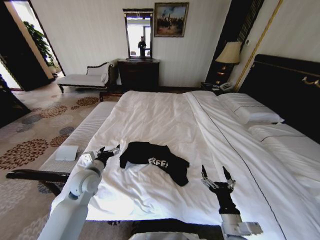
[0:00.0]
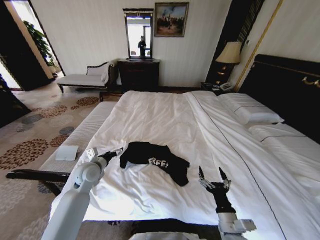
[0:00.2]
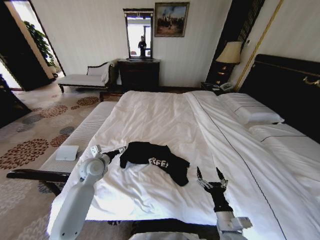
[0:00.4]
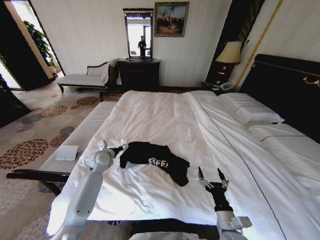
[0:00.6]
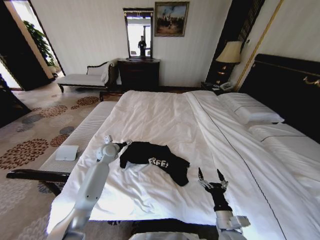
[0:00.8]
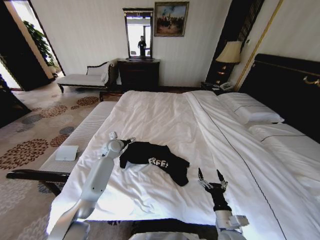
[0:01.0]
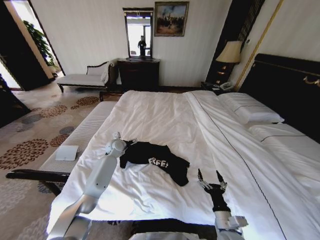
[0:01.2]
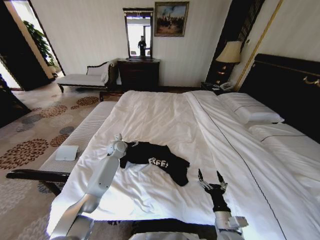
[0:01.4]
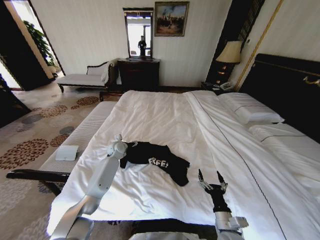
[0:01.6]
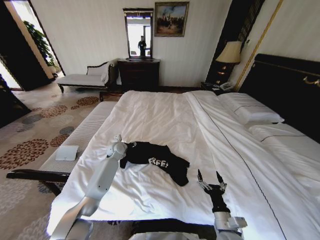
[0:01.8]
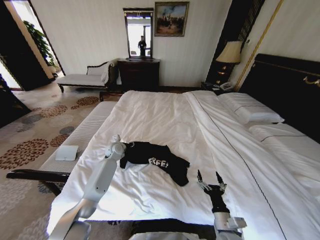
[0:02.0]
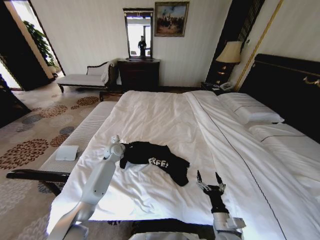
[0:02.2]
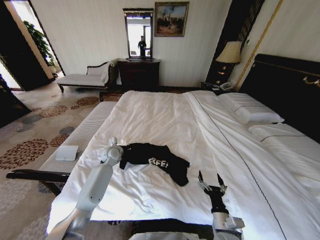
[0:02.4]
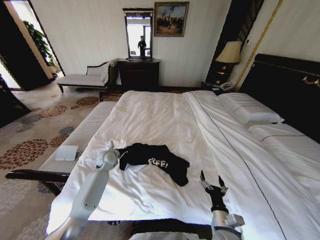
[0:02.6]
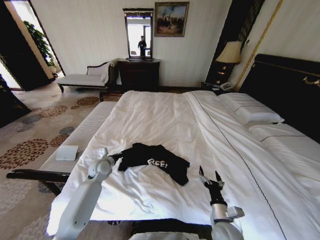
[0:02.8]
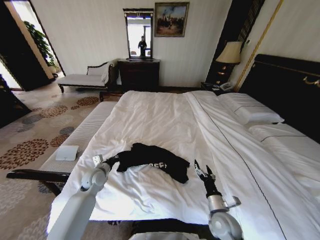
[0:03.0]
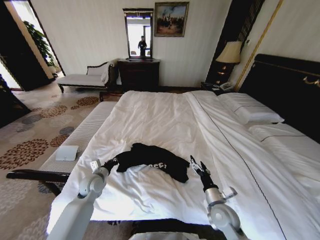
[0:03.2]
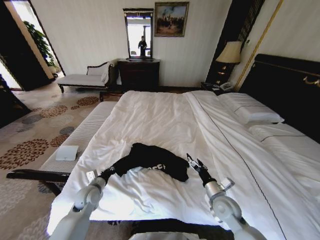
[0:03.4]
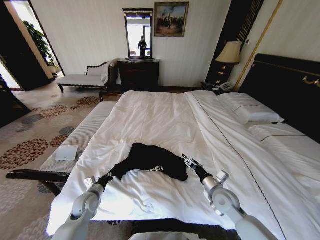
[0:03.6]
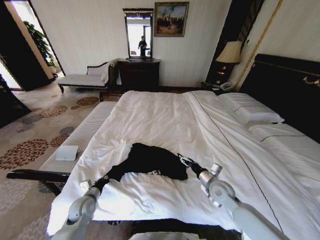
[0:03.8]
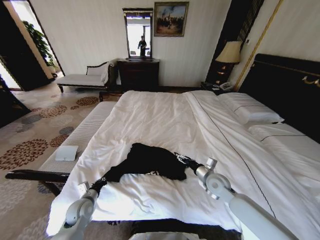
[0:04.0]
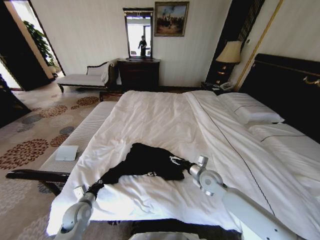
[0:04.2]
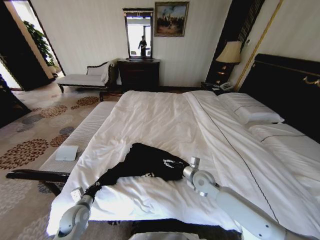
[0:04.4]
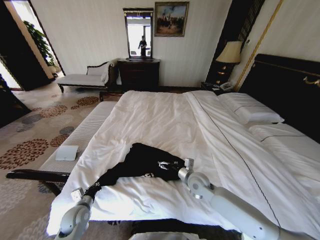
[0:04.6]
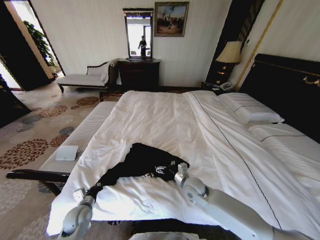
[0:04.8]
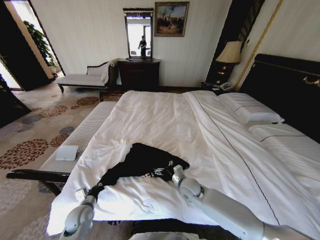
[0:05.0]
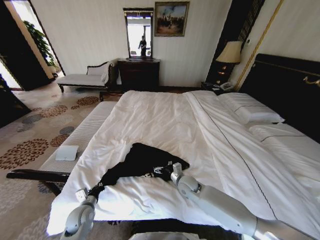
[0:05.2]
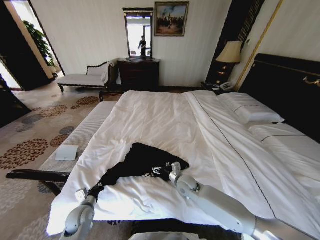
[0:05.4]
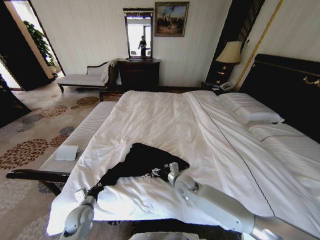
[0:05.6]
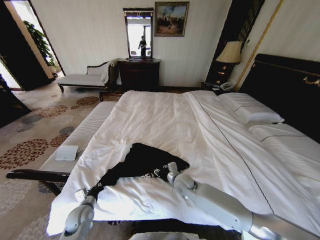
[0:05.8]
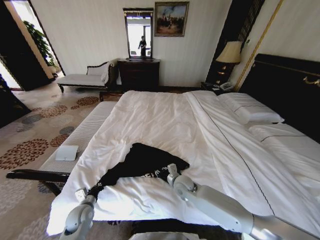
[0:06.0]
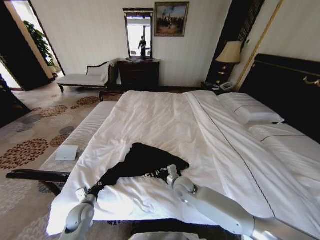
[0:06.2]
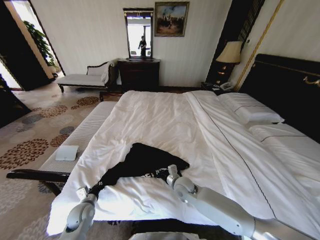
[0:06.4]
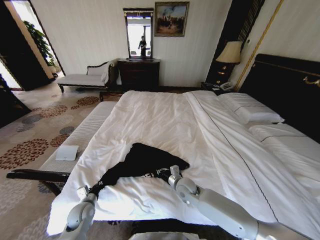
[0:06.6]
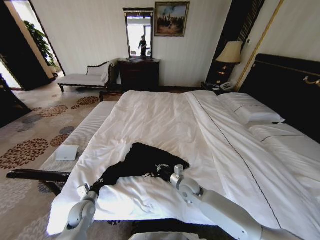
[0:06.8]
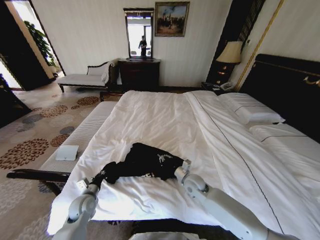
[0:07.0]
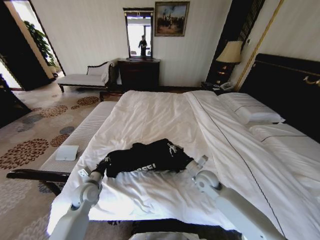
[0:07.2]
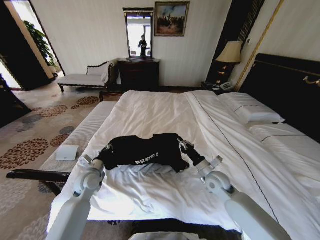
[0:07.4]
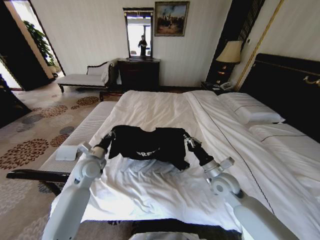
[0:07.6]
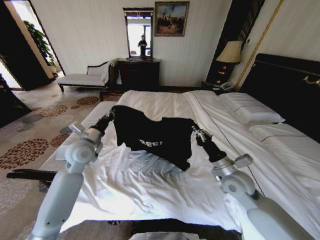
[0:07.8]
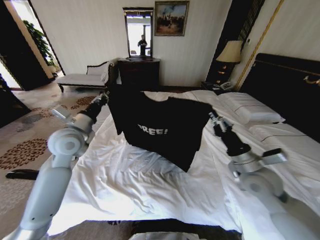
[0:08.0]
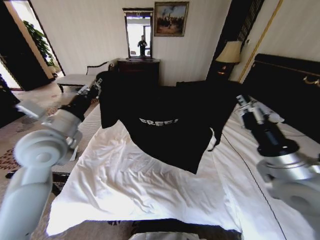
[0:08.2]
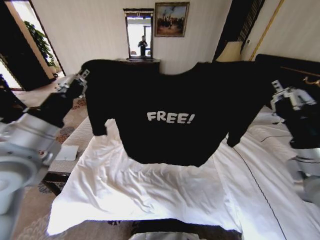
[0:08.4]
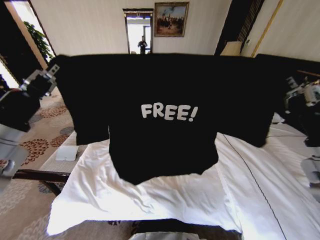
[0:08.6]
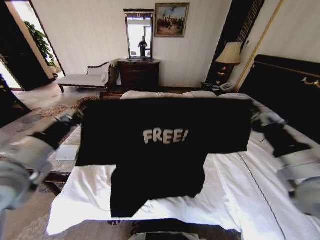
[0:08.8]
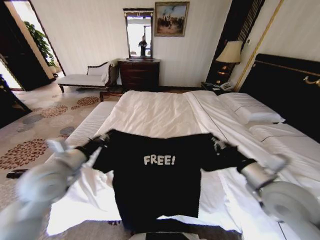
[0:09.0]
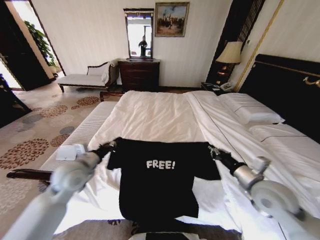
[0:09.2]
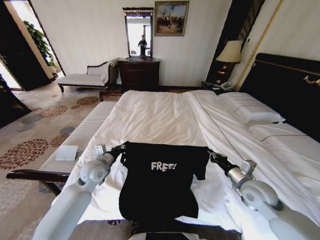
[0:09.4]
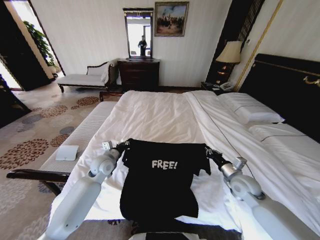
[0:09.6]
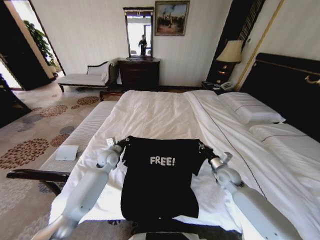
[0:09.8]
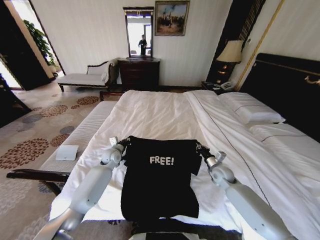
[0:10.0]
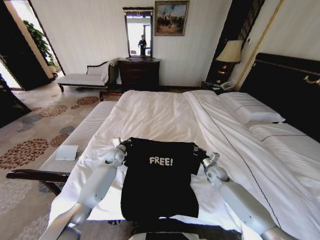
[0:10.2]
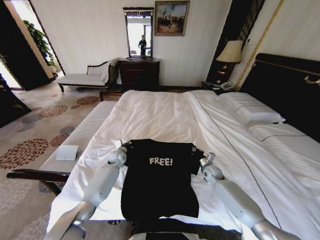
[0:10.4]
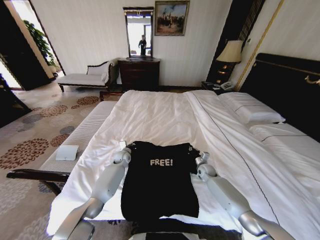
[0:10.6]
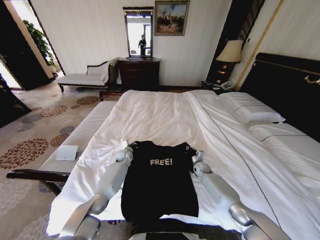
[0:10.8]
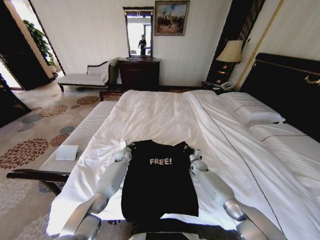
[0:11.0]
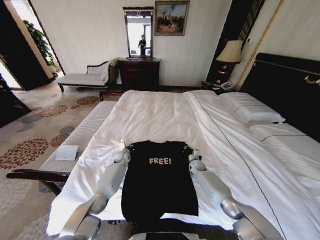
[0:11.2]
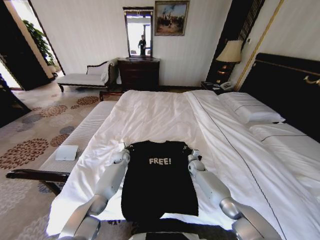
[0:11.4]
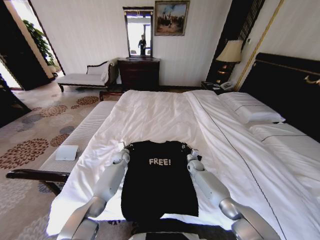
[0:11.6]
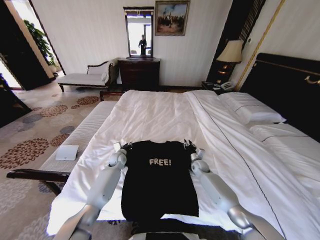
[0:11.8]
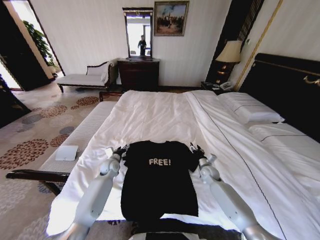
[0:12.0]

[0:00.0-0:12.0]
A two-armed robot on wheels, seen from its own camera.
Task of the whole recording: Fold the clothes on the bed.
0:00.0 to 0:01.6: The left gripper travels forward by about 20 cm. The right gripper shifts approximately 5 cm downward.
0:01.6 to 0:03.0: The left gripper moves backward and to the left, roughly 20 cm, and closes up. The right gripper is displaced forward by approximately 5 cm.
0:03.0 to 0:04.4: The right gripper heads forward, covering about 15 cm; the left gripper moves backward and downward, roughly 15 cm.
0:04.4 to 0:06.0: The right gripper shifts about 10 cm to the left, and closes up.
0:06.0 to 0:07.6: The right gripper heads to the right and upward, covering roughly 15 cm; the left gripper moves upward and forward, about 20 cm.
0:07.6 to 0:09.0: The grippers both shift upward and backward by some 20 cm.
0:09.0 to 0:10.4: The grippers both shift downward and forward by roughly 35 cm.
0:10.4 to 0:12.0: The right gripper goes forward and returns, some 5 cm each way, and opens its fingers. The left gripper travels backward by some 5 cm, and opens.

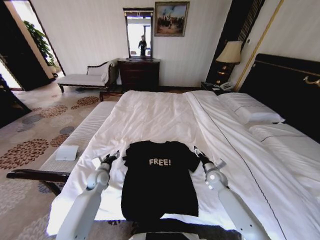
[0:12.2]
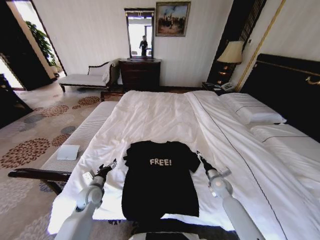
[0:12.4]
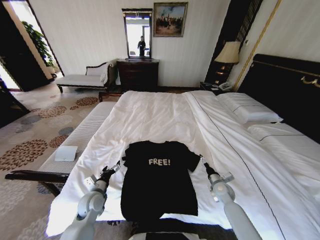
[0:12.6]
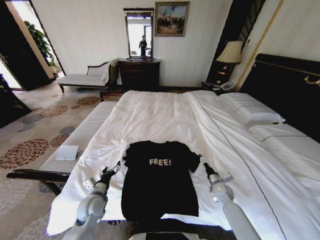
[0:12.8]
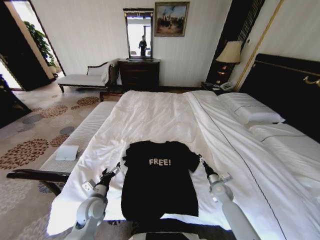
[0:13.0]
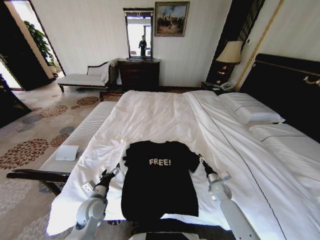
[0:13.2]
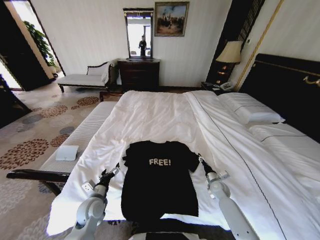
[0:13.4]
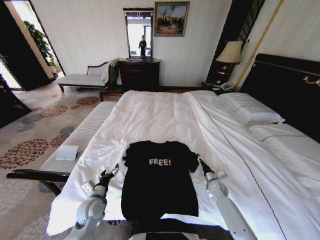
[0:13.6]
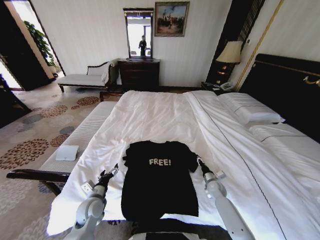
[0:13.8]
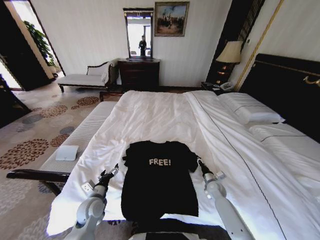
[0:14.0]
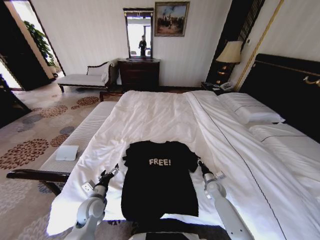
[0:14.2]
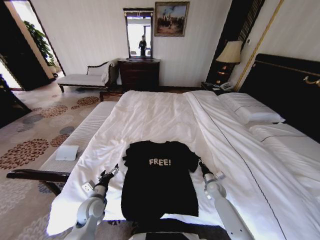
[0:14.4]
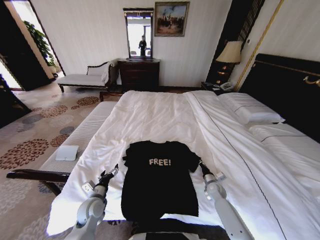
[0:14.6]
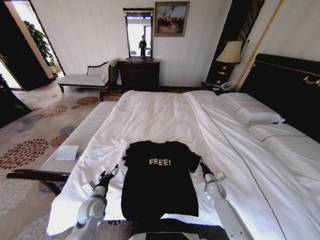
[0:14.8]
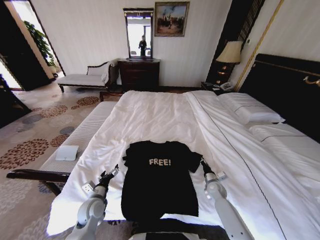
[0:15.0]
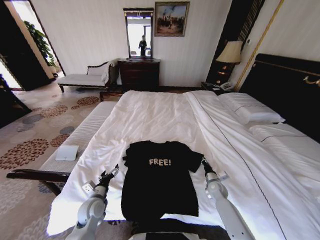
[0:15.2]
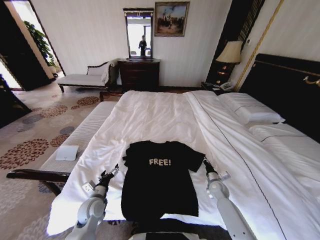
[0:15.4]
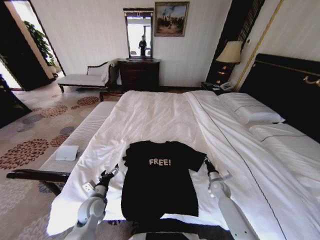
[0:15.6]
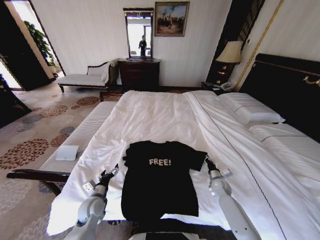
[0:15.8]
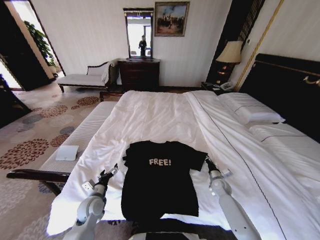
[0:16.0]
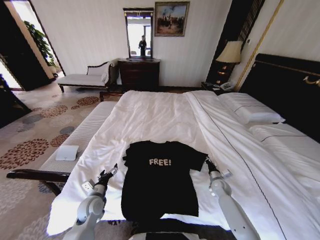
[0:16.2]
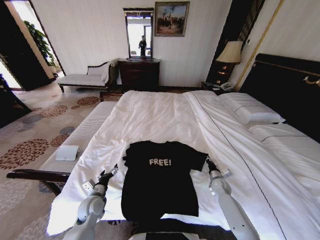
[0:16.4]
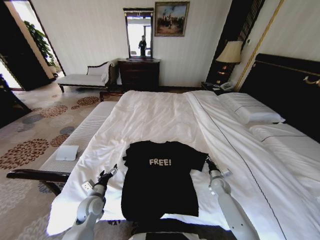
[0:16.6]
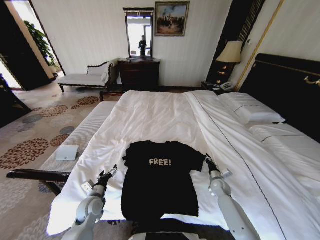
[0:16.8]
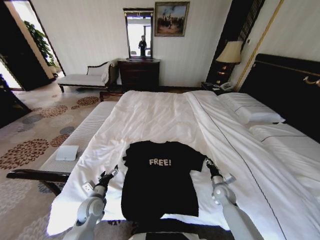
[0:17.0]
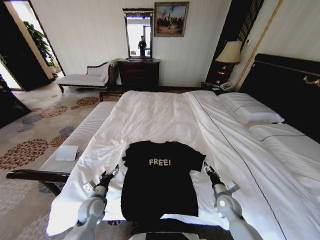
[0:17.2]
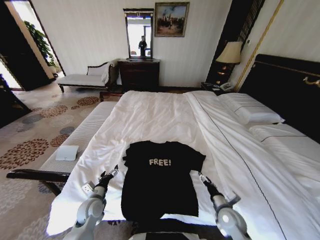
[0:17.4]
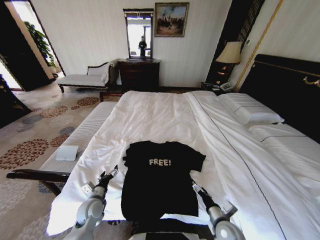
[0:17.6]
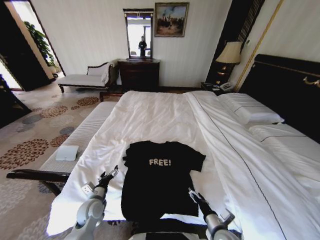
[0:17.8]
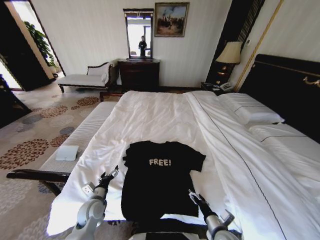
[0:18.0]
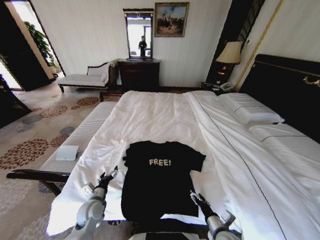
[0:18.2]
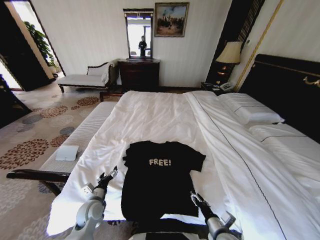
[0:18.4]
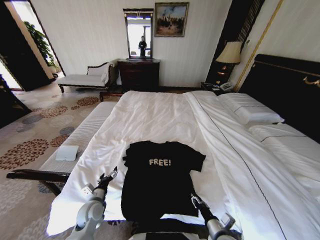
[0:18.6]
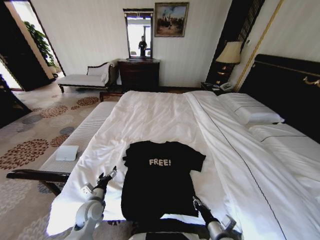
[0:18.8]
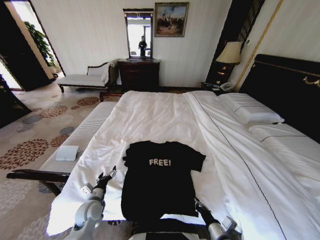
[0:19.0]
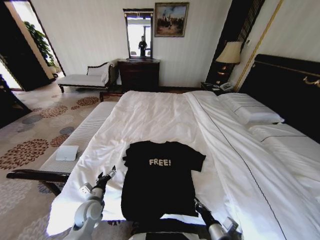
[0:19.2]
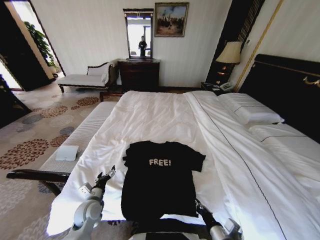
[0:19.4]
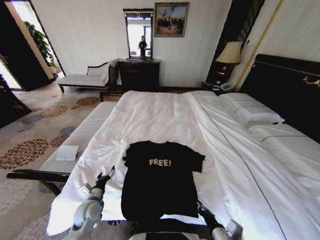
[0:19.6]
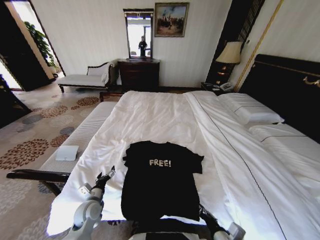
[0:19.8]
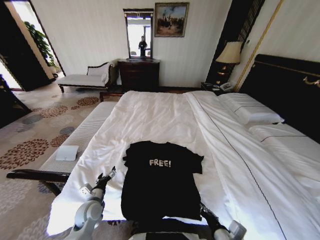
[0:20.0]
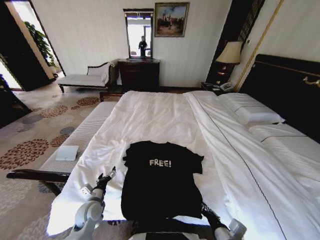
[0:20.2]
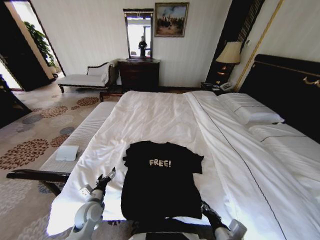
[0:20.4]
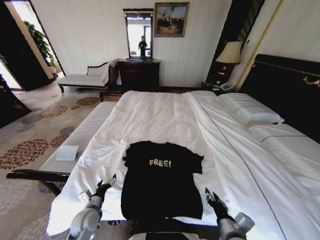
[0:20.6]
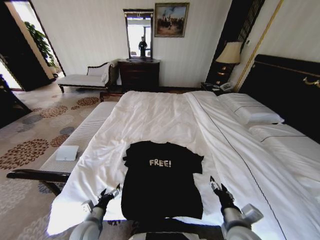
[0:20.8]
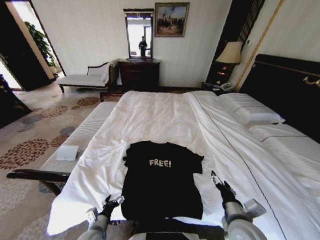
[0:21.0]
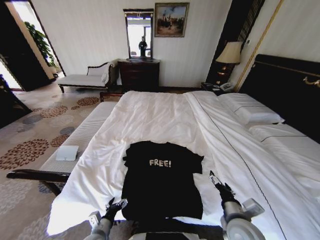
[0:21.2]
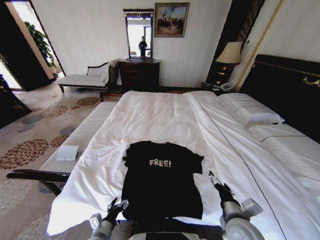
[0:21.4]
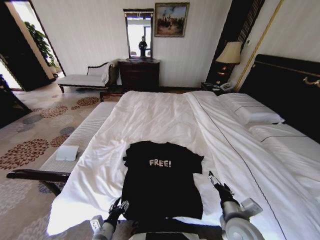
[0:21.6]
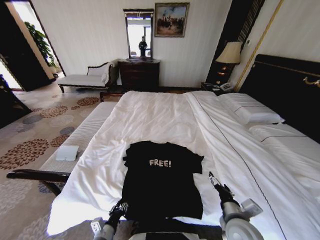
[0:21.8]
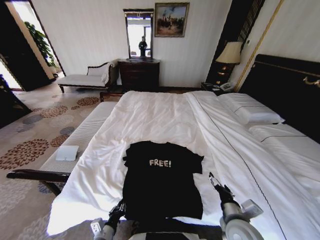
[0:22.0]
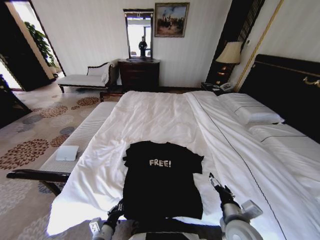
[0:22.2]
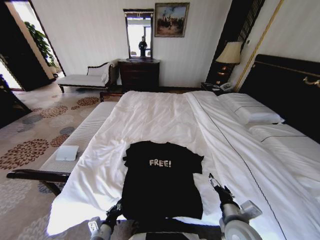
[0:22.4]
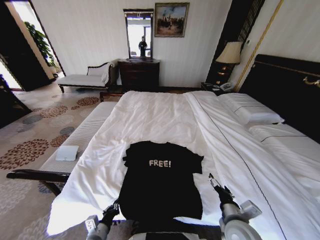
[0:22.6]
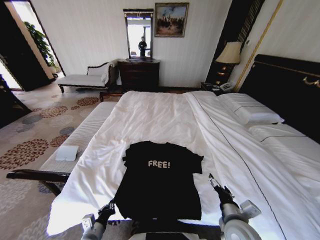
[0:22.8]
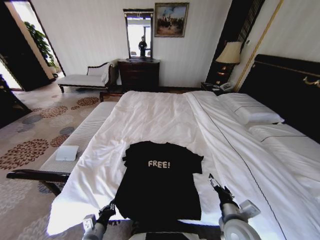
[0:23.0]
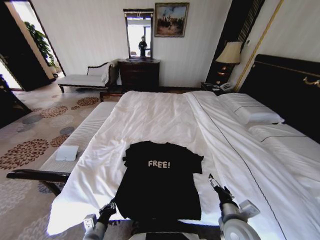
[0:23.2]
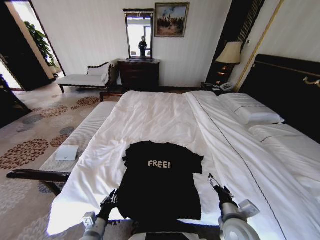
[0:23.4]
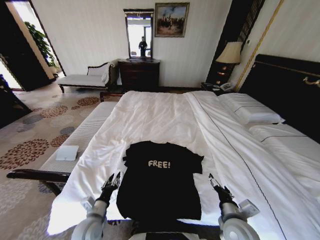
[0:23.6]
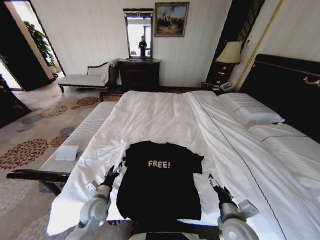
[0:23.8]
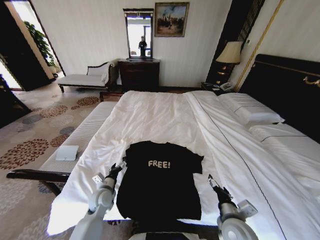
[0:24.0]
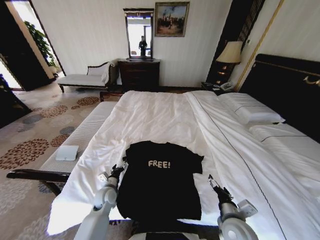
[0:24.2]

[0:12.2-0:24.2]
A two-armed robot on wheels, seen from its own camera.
Task of the whole recording: Fold the clothes on the bed.
0:12.2 to 0:13.8: The right gripper shifts about 10 cm downward; the left gripper heads backward, covering roughly 10 cm.
0:13.8 to 0:15.2: The right gripper closes its fingers.
0:15.2 to 0:16.6: The grippers move only a little.
0:16.6 to 0:18.2: The right gripper moves backward and to the left, approximately 25 cm, and opens up.
0:18.2 to 0:19.8: The right gripper is displaced upward and backward by roughly 5 cm, and closes.
0:19.8 to 0:21.2: The left gripper goes about 10 cm backward. Meanwhile the right gripper travels upward and forward by about 10 cm, and opens.
0:21.2 to 0:22.6: The left gripper closes.
0:22.6 to 0:24.2: The left gripper moves forward, approximately 20 cm, and opens.
